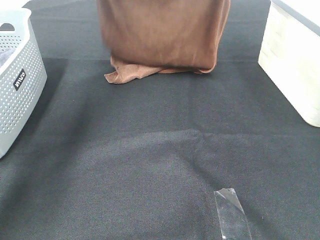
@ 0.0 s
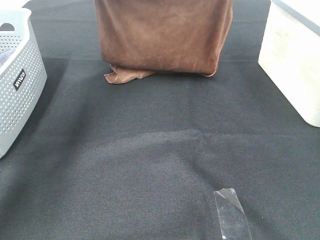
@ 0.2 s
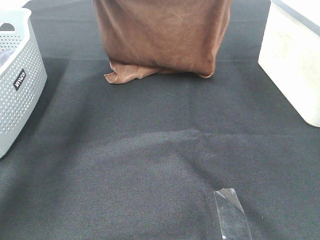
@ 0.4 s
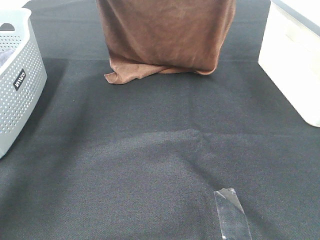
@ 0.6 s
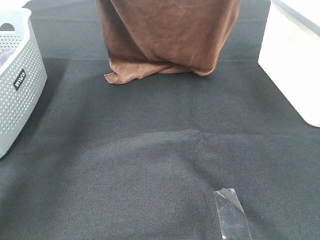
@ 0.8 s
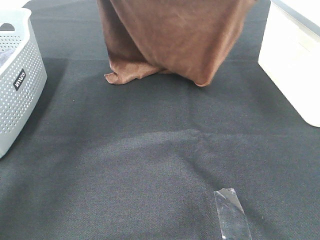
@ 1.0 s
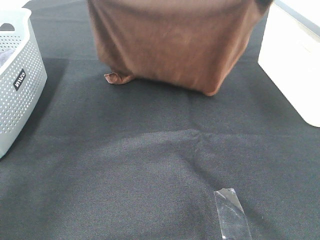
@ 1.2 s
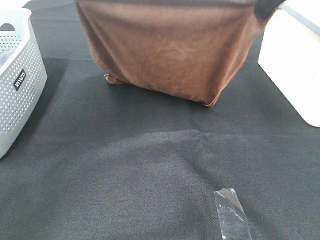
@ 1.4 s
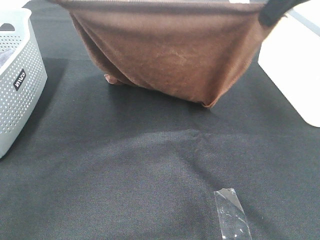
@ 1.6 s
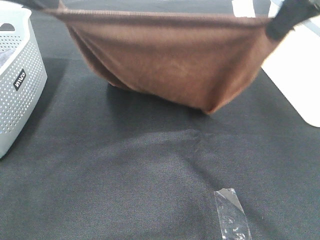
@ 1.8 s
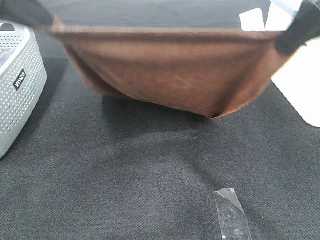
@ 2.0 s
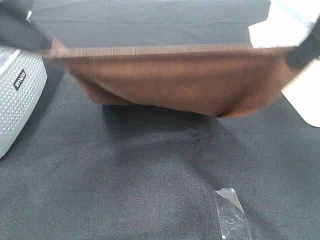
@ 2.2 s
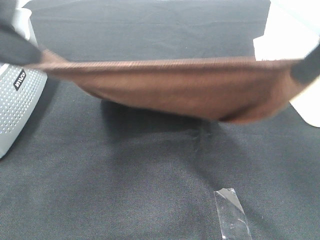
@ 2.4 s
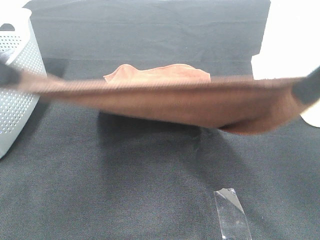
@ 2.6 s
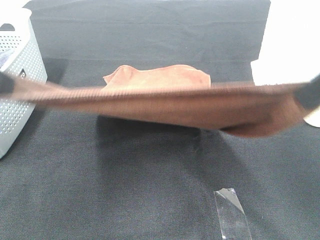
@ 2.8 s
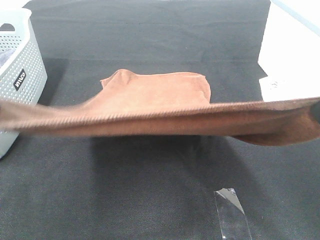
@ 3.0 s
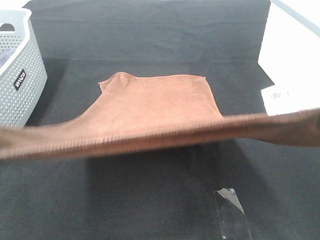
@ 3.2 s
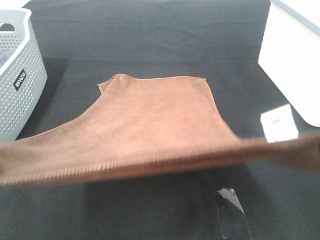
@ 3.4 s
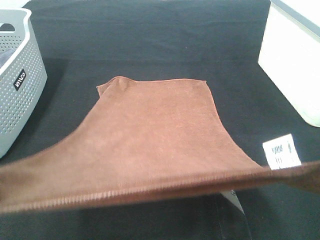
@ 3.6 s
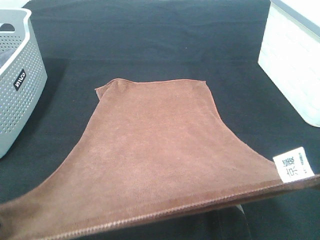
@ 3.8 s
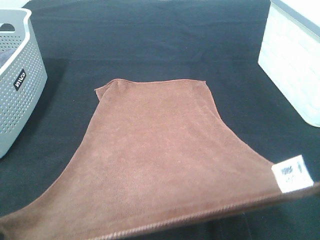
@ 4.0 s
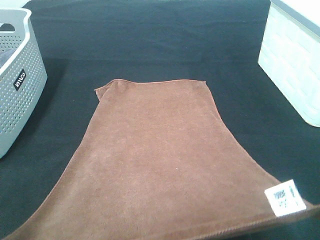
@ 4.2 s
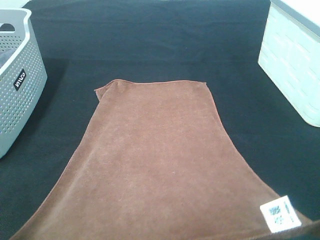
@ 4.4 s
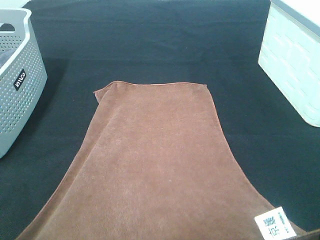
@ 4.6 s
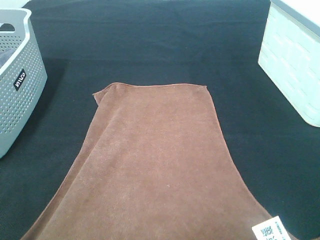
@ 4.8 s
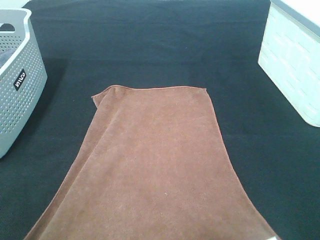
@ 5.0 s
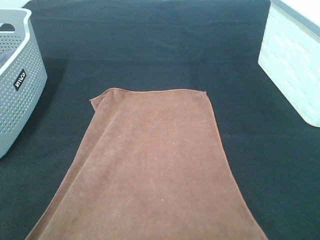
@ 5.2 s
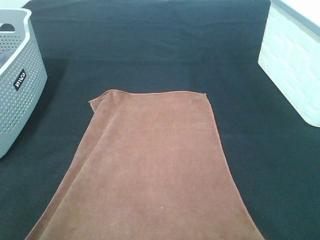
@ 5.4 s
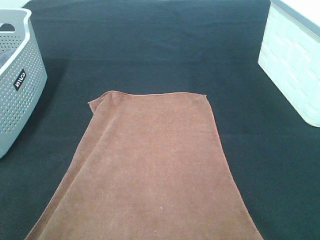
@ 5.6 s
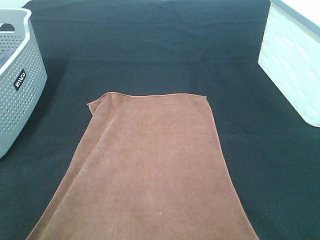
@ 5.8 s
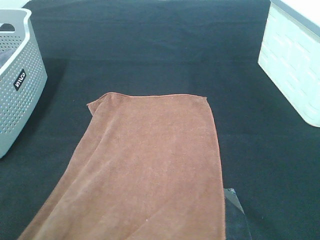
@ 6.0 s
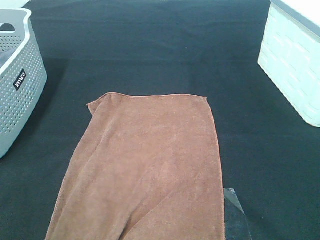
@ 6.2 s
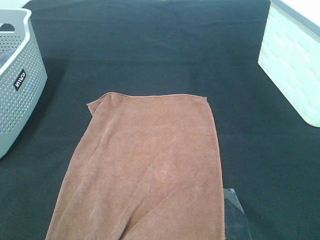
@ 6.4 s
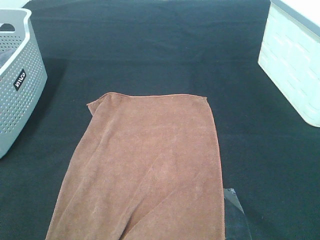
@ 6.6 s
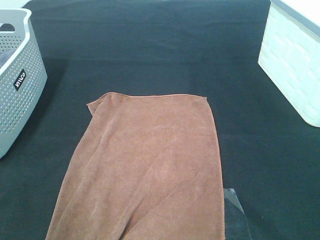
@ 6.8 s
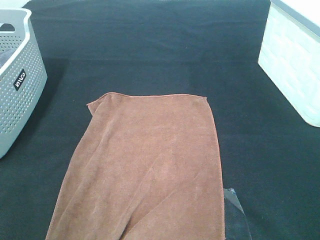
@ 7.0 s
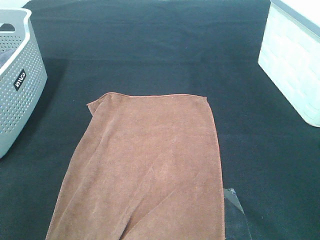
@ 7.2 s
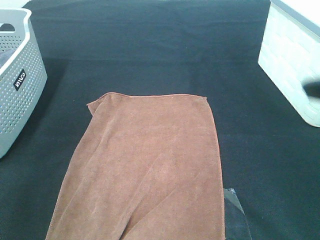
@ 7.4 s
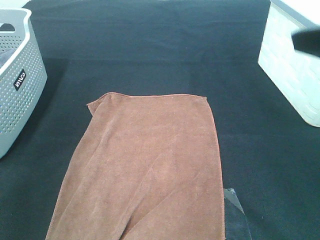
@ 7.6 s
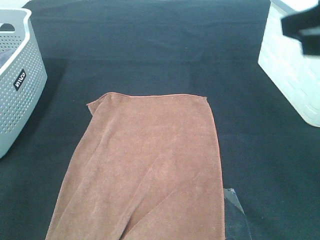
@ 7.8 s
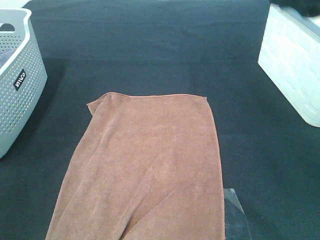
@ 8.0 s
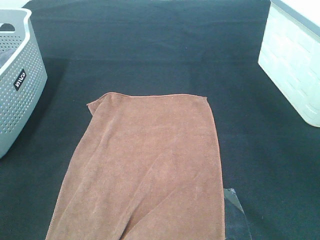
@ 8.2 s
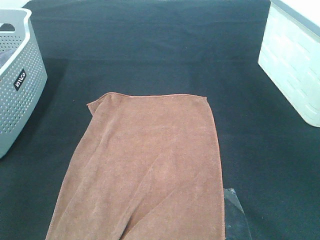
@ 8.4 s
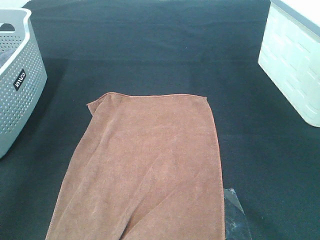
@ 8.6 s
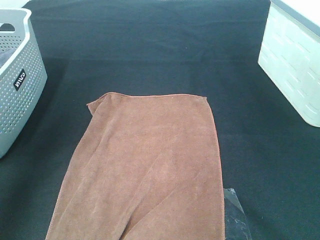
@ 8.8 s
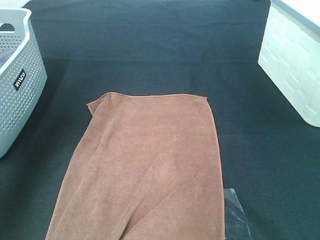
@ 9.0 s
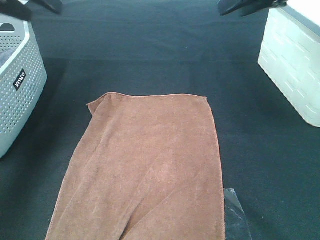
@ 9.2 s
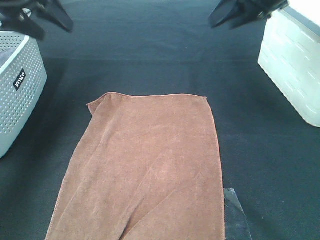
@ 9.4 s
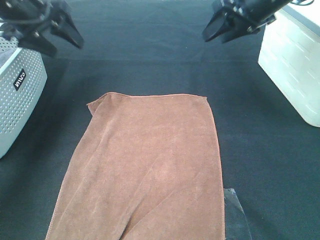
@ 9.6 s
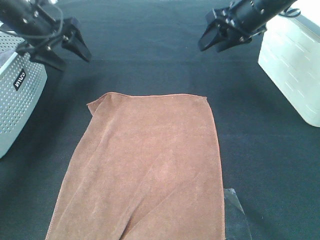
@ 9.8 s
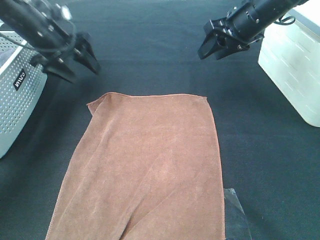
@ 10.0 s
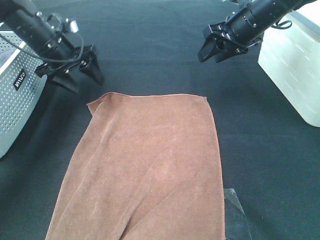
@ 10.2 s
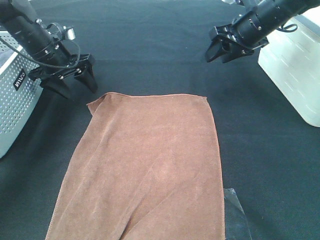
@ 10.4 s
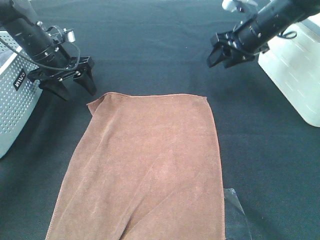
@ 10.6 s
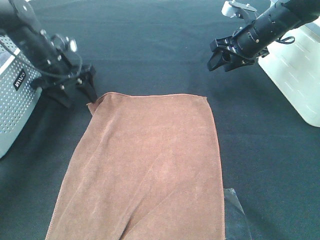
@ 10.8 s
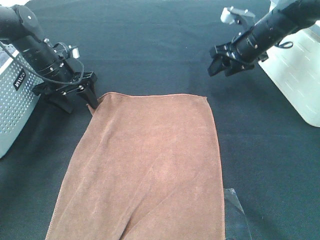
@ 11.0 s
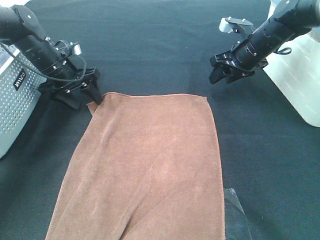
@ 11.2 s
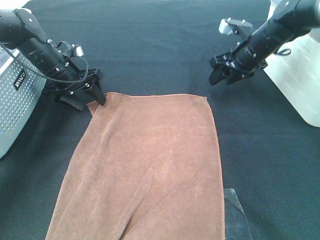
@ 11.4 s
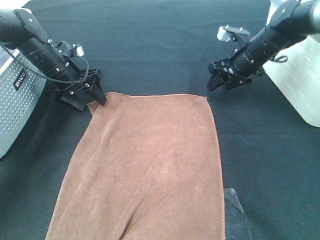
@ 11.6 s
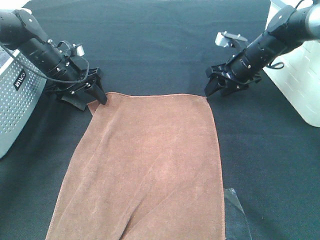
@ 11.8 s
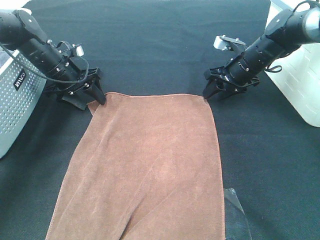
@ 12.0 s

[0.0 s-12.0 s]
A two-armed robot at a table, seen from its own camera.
Task of the whole recording: Remove the towel and place it.
Step, 1.0 to 9.8 s: Left hand:adjust the brown towel.
Step, 1.0 to 9.8 s: Right hand:adjust the brown towel.
0.0 to 1.6 s: Both grippers move backward, approximately 20 cm.
1.6 to 3.0 s: The grippers both shift backward by roughly 20 cm.
3.0 to 4.4 s: The grippers both shift downward and backward by approximately 10 cm.
4.4 to 6.0 s: The left gripper opens. The right gripper opens its fingers.
6.0 to 7.6 s: The grippers both shift upward and forward by about 15 cm. The left gripper opens up.
7.6 to 9.0 s: Both grippers move forward, some 20 cm.
9.0 to 10.4 s: Both grippers move downward and forward, about 25 cm.
10.4 to 12.0 s: The right gripper goes about 10 cm downward. The left gripper moves downward, some 5 cm.

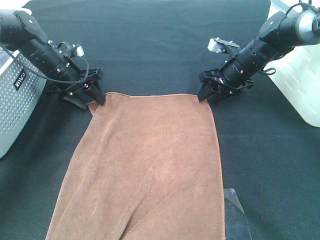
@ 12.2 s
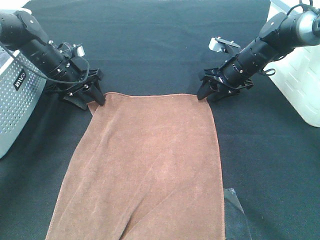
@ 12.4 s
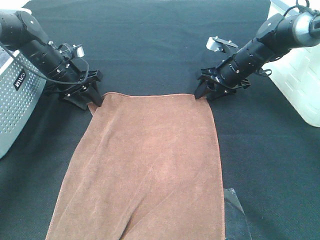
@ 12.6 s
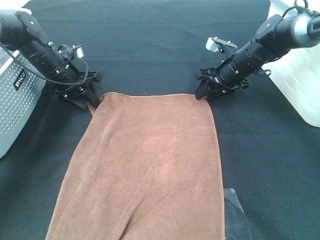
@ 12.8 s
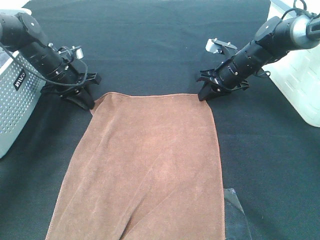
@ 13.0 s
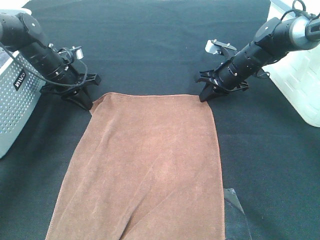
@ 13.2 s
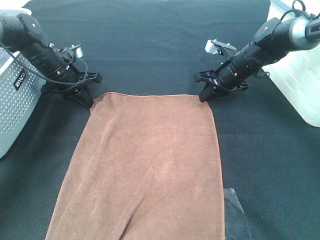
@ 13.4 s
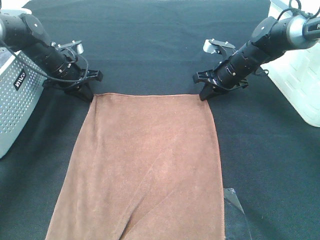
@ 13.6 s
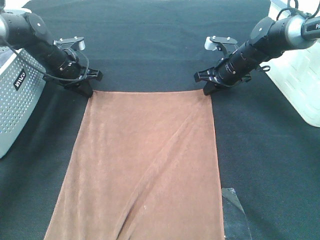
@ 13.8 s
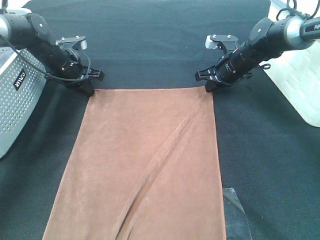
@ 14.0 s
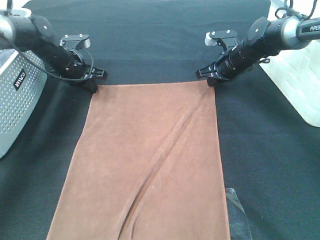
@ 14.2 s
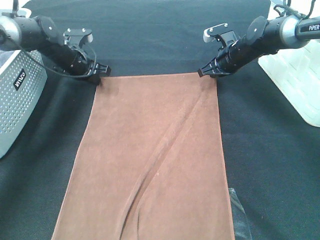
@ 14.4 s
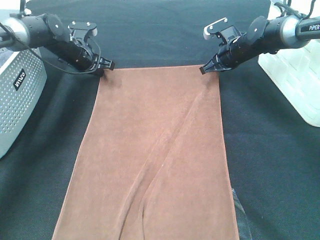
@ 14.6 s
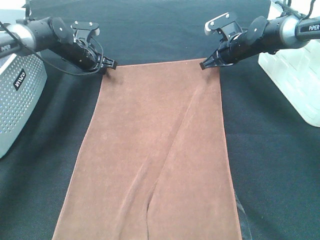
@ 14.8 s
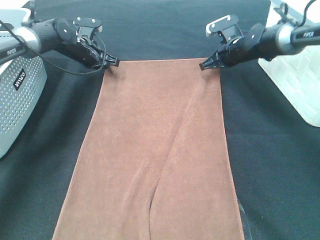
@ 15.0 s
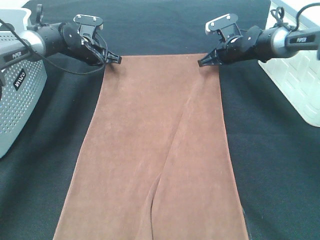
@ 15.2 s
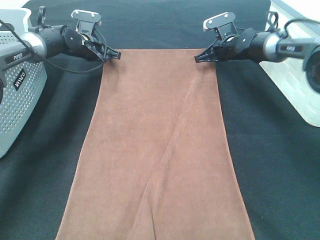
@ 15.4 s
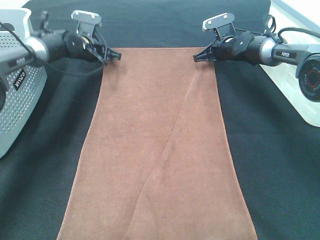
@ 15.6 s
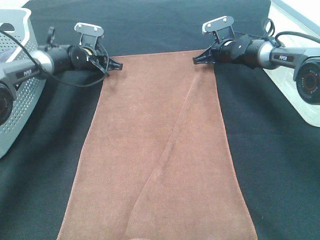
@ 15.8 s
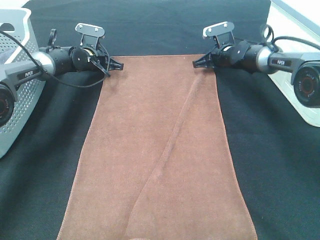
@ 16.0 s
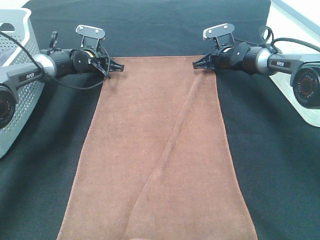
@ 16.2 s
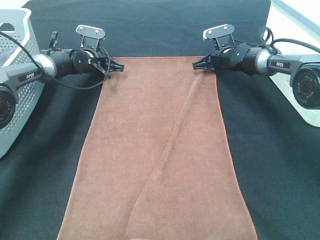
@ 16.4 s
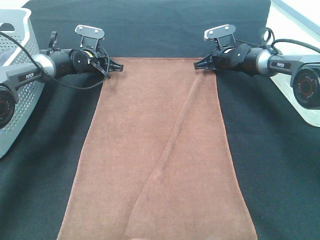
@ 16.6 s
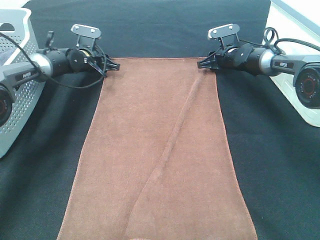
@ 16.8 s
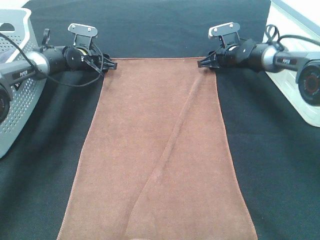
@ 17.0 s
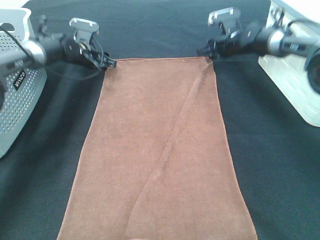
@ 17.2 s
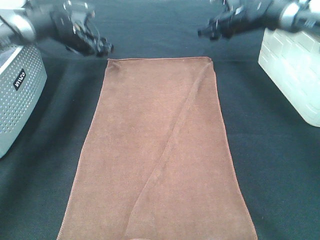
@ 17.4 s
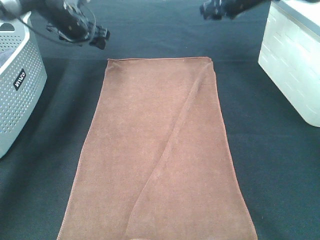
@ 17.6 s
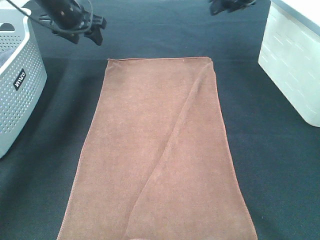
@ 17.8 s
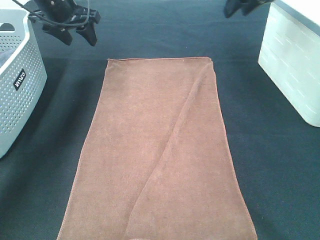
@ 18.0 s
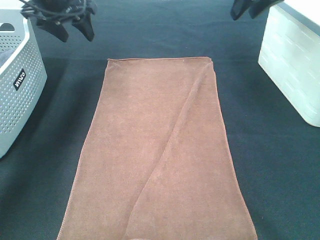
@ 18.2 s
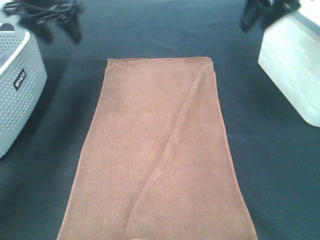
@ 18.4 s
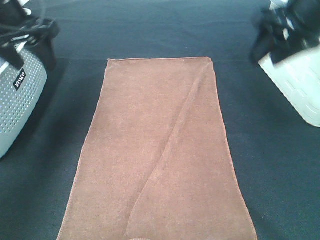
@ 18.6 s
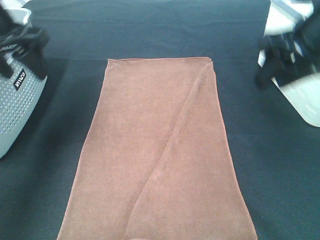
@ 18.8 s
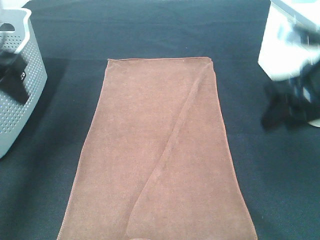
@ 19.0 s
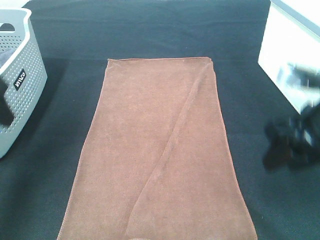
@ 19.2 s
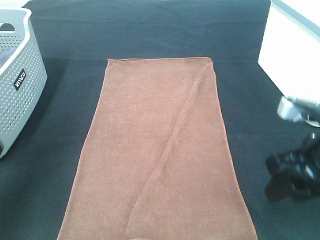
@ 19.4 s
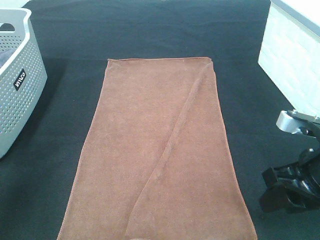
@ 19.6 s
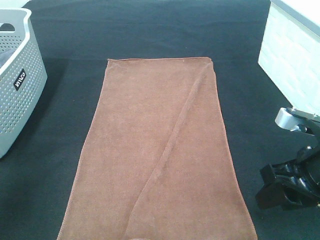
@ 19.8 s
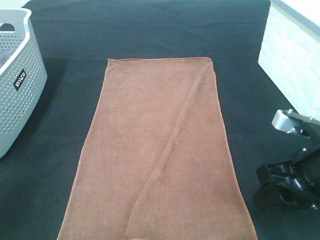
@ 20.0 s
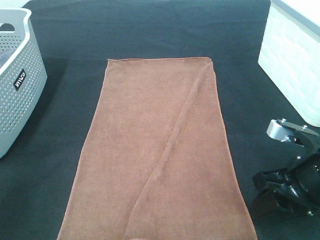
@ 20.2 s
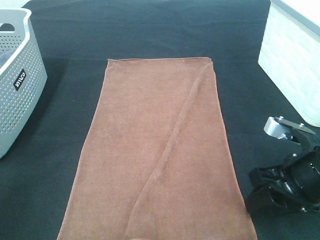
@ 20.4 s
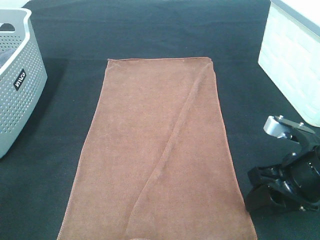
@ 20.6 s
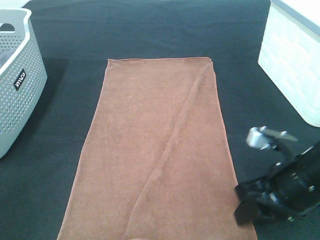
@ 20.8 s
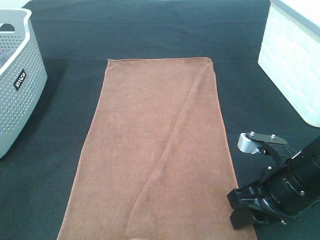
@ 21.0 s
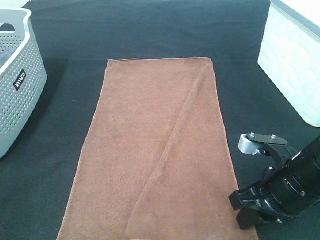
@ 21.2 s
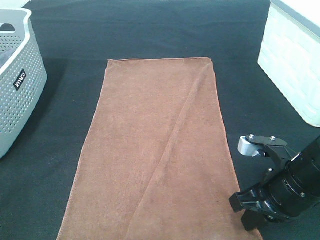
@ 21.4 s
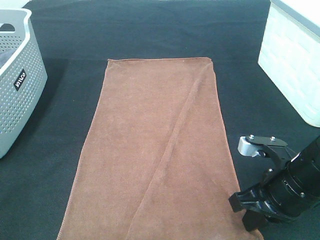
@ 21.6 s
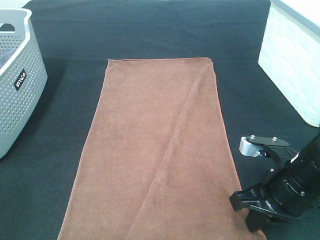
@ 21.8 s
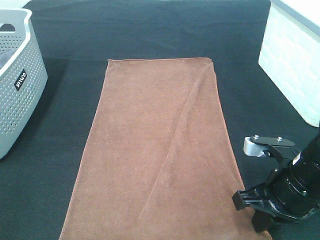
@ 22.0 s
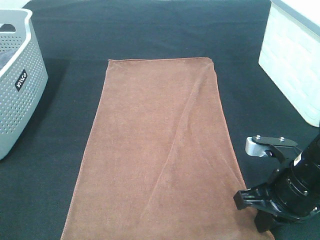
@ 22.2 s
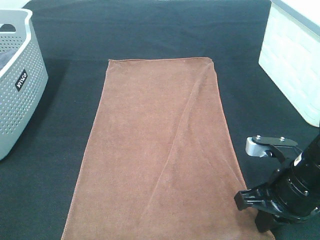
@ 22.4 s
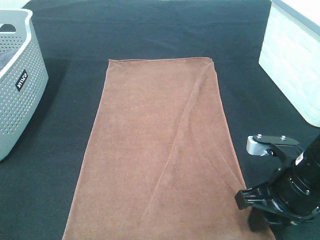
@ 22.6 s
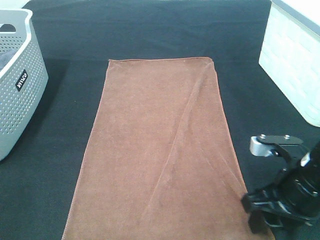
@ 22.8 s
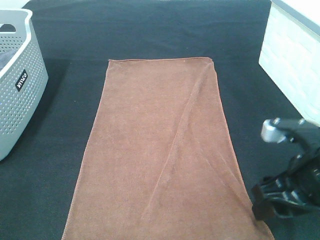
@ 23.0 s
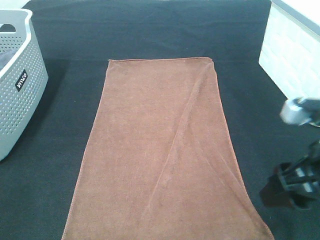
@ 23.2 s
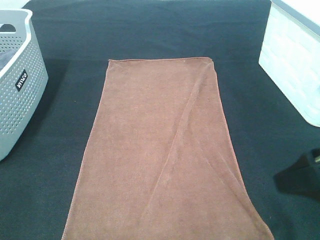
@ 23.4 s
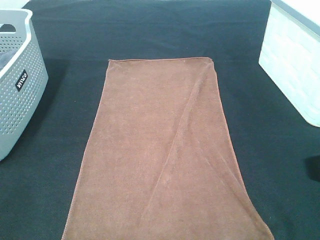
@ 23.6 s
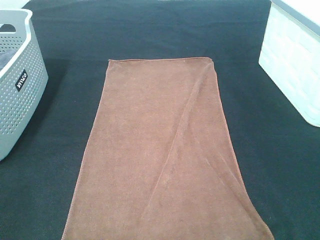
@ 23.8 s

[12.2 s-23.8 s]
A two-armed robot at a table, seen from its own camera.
Task of the whole recording: Remove the towel and place it.
12.2 to 13.6 s: The right gripper closes up. Meanwhile the left gripper closes its fingers.
13.6 to 15.0 s: Both grippers travel together forward, some 5 cm.
15.0 to 16.6 s: The right gripper shifts by approximately 5 cm, and opens its fingers.
16.6 to 18.0 s: The two grippers go roughly 25 cm upward and backward. The left gripper opens up.
18.0 to 19.4 s: The right gripper is displaced backward and downward by approximately 30 cm. The left gripper is displaced backward by roughly 30 cm.
19.4 to 21.0 s: The left gripper goes some 15 cm backward; the right gripper moves downward, some 5 cm.
21.0 to 22.4 s: The right gripper closes up.
22.4 to 23.8 s: The right gripper heads upward and backward, covering roughly 20 cm, and opens up.
